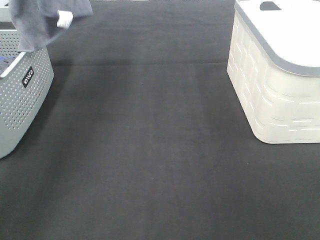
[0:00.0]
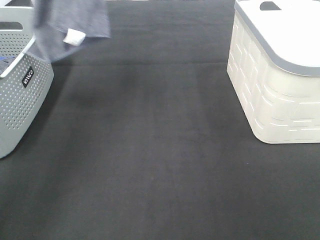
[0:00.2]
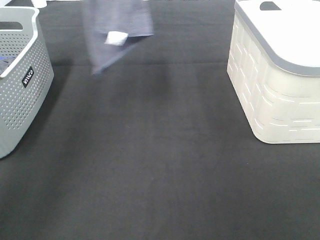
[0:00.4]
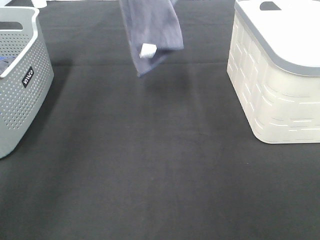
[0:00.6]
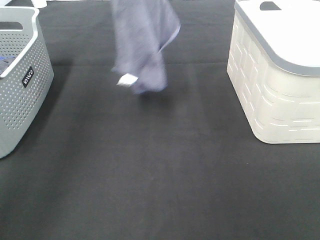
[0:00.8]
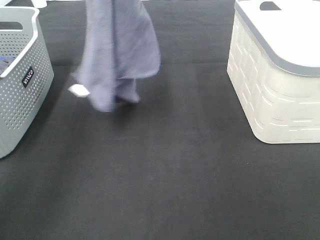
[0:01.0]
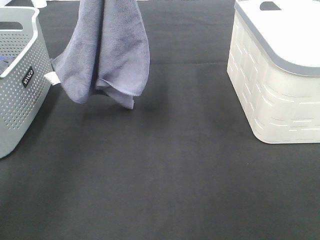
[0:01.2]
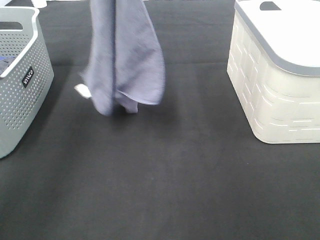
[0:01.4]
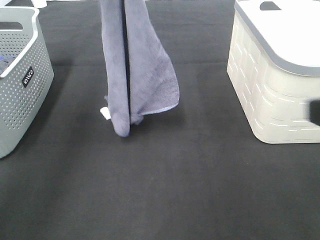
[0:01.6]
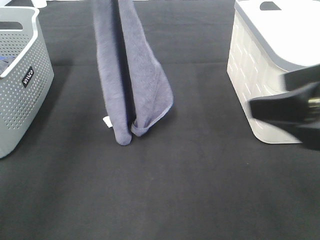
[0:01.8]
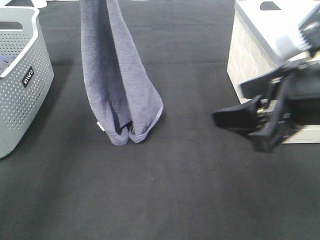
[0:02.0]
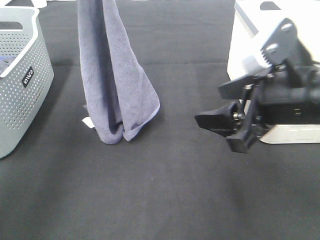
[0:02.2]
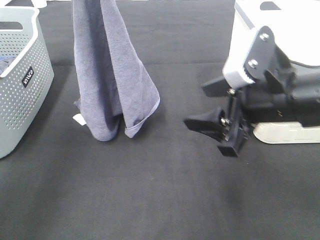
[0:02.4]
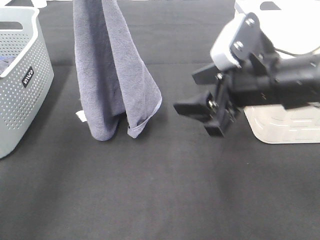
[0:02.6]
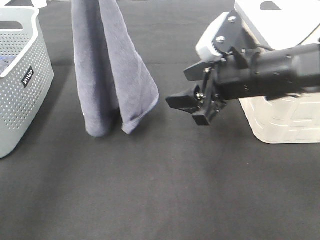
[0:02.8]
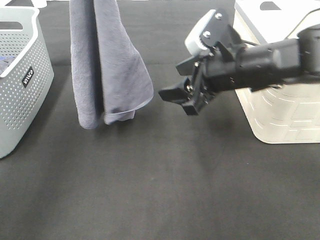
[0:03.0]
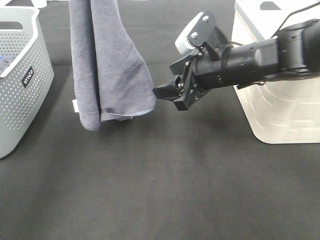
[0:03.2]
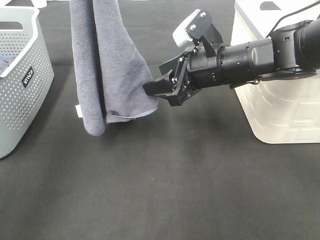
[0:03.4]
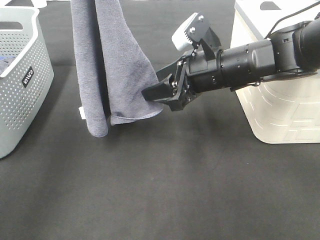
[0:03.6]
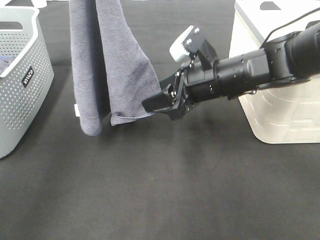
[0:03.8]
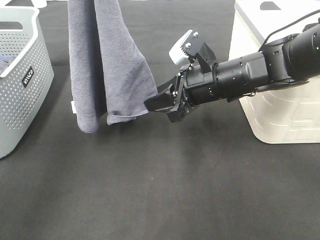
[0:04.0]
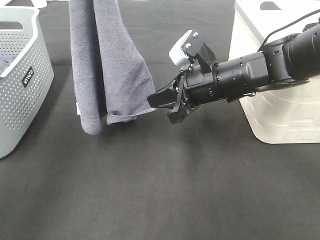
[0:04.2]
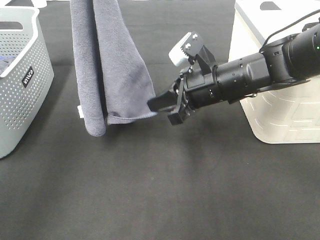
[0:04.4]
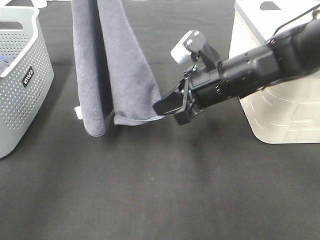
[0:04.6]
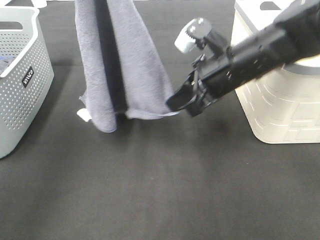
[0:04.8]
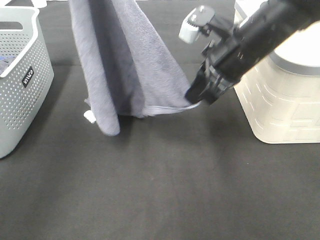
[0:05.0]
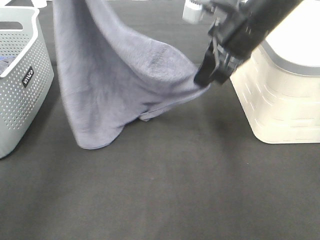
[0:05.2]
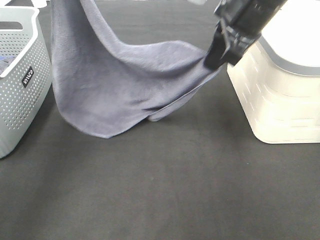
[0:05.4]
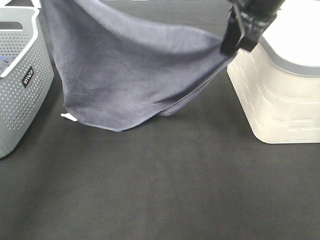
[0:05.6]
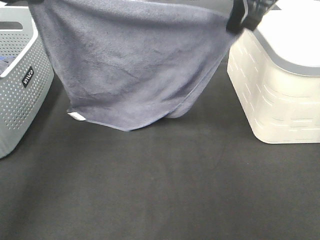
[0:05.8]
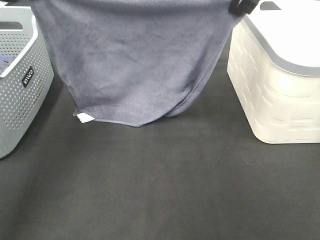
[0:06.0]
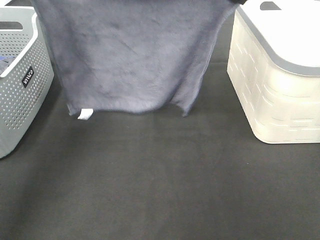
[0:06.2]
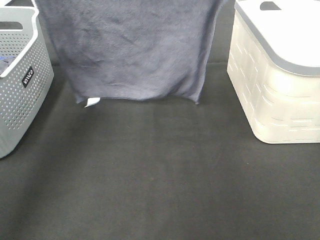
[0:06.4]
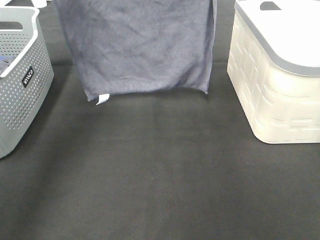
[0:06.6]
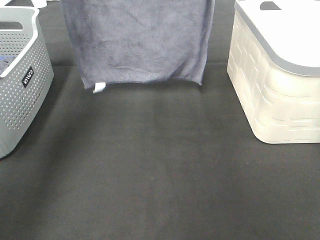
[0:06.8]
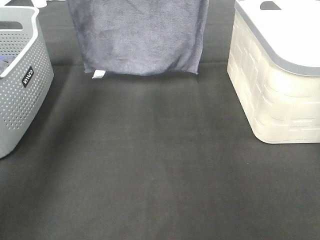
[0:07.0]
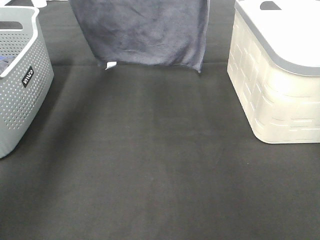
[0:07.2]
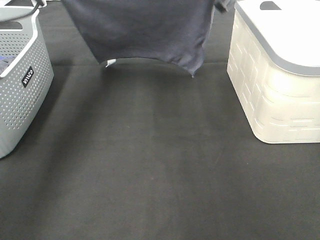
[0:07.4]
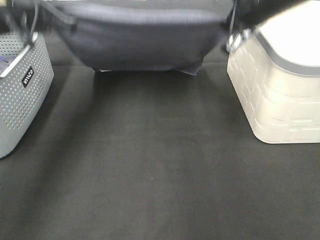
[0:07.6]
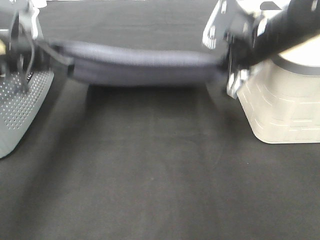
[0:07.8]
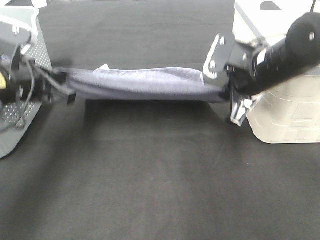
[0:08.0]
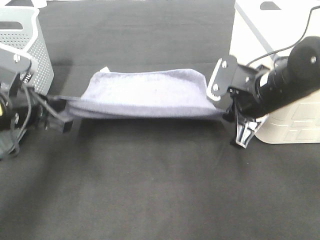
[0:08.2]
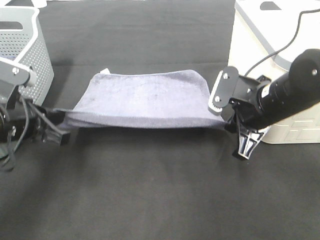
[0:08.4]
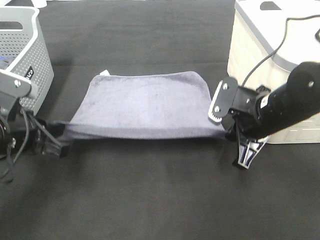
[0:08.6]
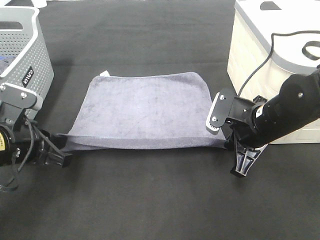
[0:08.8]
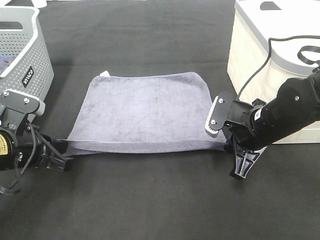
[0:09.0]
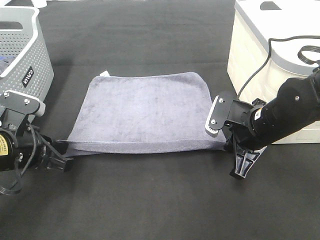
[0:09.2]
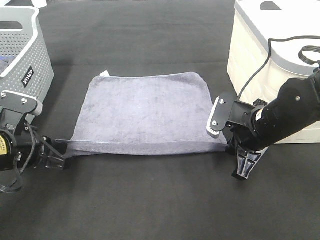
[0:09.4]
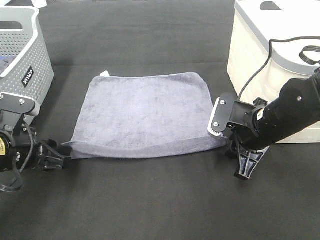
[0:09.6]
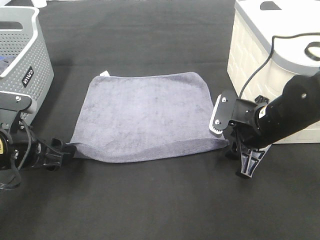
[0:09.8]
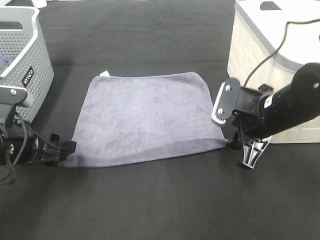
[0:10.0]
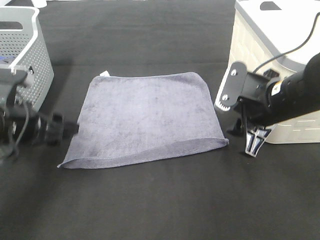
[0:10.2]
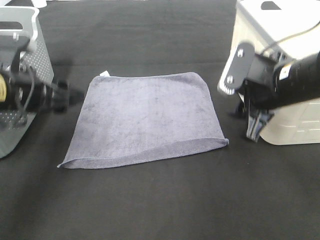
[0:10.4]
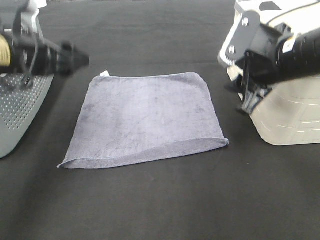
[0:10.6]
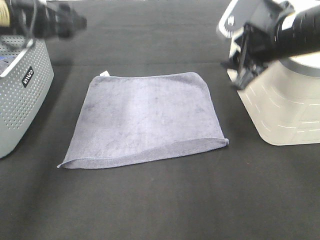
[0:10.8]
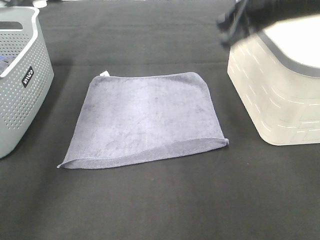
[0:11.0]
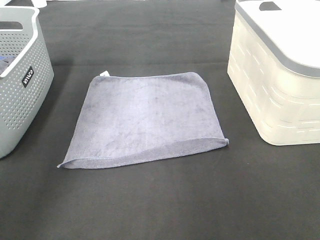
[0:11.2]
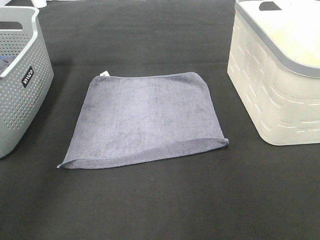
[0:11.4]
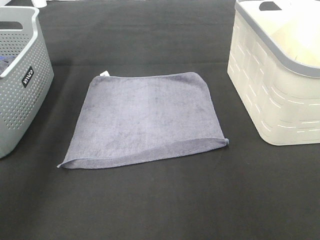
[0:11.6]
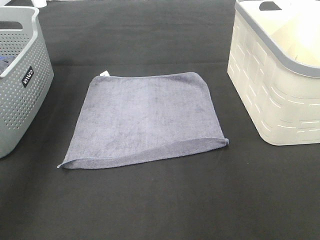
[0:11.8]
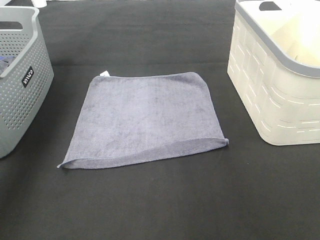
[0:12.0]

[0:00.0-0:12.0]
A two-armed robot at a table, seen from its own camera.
Task of the whole recording: Remove the towel and place it.
Step, 0:00.2 to 0:03.4: Right hand: grab a corner of the grey towel and straighten it.
Step, 0:03.6 to 0:06.0: Right hand: spread the grey towel flat on the table.
Step, 0:03.6 to 0:06.4: Left hand: spread the grey towel flat on the table.
0:00.0 to 0:01.6: The left gripper heads downward and to the right, covering about 15 cm. Meanwhile the right gripper heads forward and to the left, covering some 10 cm.
0:01.6 to 0:03.0: The left gripper moves backward, approximately 5 cm. The right gripper heads forward, downward and to the left, covering roughly 25 cm.
0:03.0 to 0:04.4: The right gripper closes its fingers.
0:04.4 to 0:06.0: The right gripper goes about 20 cm upward; the left gripper is displaced downward and to the left by roughly 15 cm.
0:06.0 to 0:07.6: The grippers both shift downward by approximately 10 cm. The left gripper goes forward and returns, some 15 cm each way.
0:07.6 to 0:09.0: The grippers both shift downward and backward by about 20 cm.
0:09.0 to 0:10.4: The two grippers go approximately 10 cm upward. The left gripper opens up; the right gripper opens up.
0:10.4 to 0:12.0: The left gripper shifts some 25 cm upward, forward and to the left, while the right gripper travels upward and forward by approximately 25 cm.

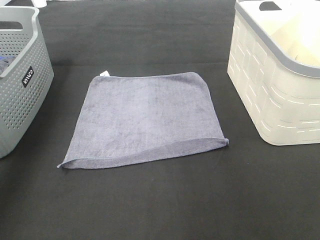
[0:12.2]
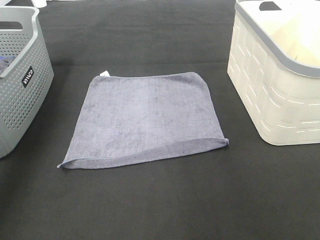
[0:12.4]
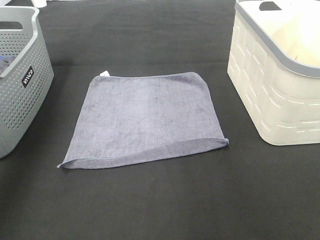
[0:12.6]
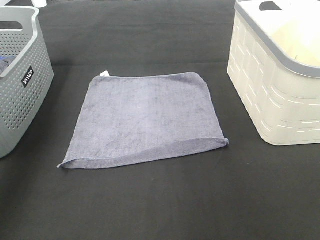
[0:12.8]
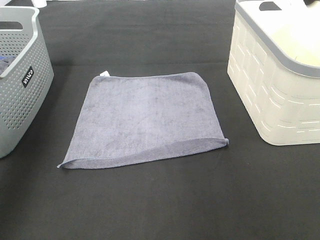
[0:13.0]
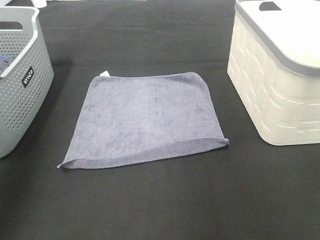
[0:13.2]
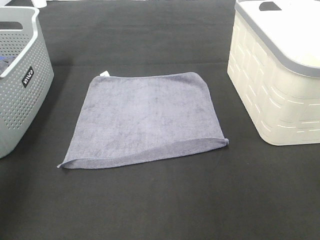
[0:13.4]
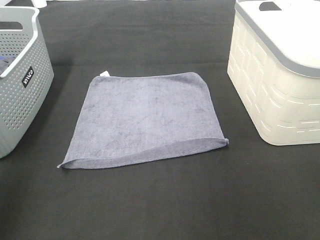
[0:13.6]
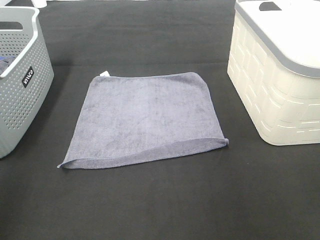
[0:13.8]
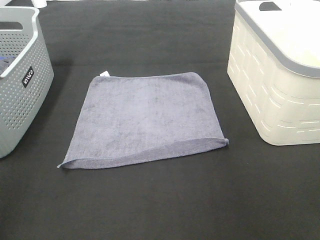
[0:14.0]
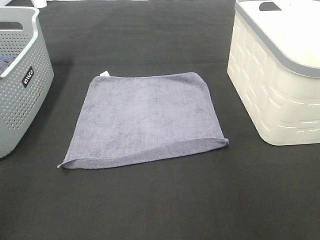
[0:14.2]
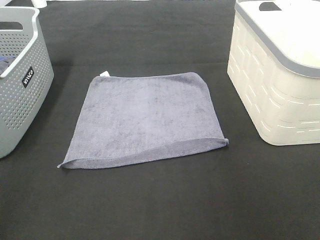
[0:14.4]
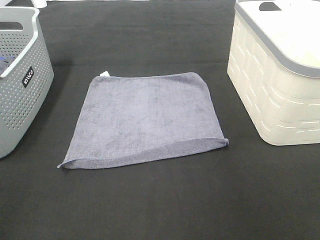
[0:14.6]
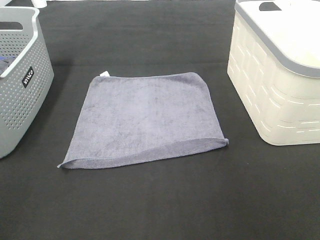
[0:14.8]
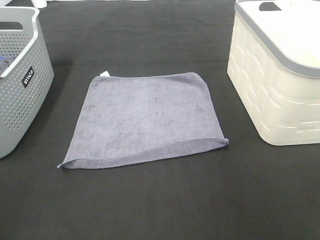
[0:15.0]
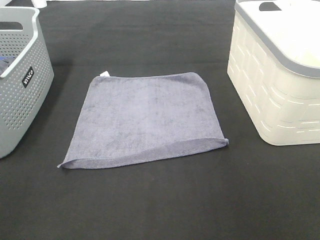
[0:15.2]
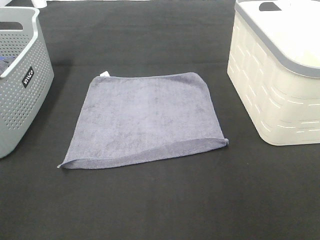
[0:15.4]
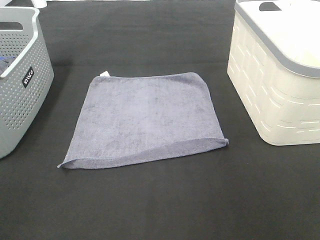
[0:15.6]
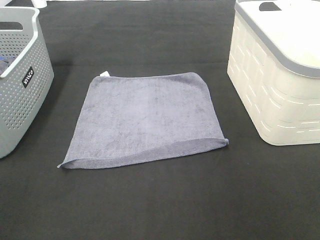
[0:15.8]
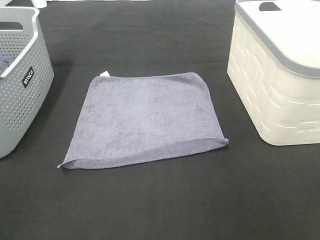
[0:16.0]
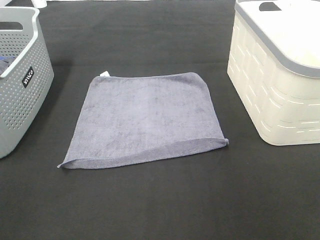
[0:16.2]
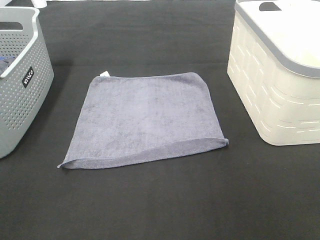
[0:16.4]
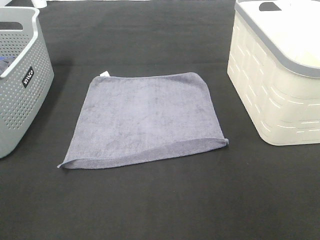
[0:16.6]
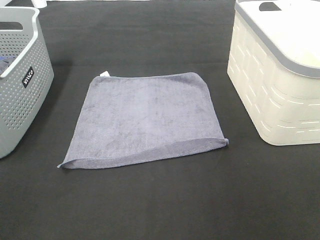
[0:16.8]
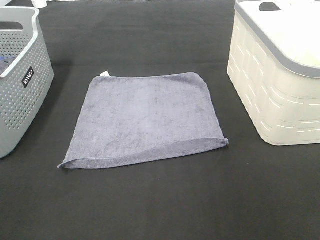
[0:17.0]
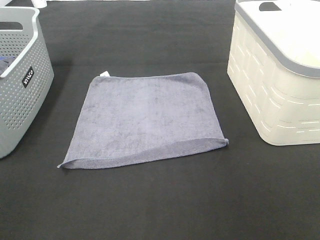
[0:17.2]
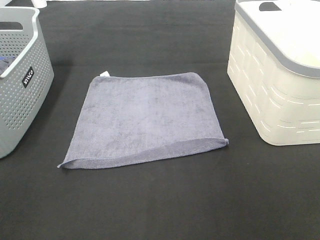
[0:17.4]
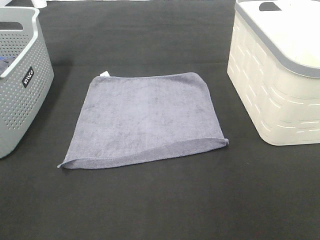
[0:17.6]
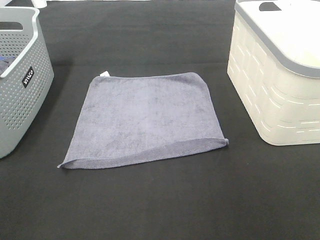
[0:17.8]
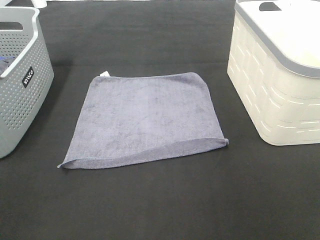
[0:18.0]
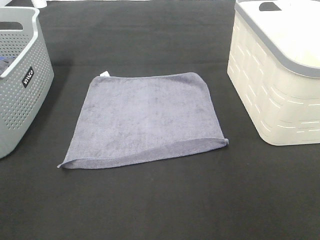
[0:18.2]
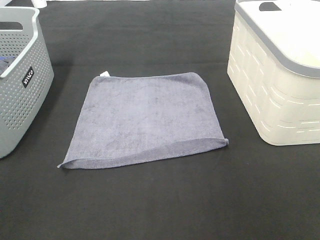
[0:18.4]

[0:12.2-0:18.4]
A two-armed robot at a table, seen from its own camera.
Task of the whole recording: Remove the towel and place it.
0:12.2 to 0:13.8: Both grippers travel together backward, about 30 cm.
